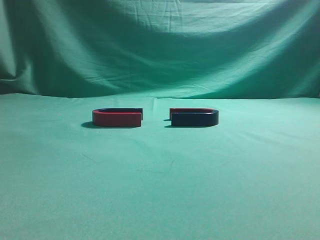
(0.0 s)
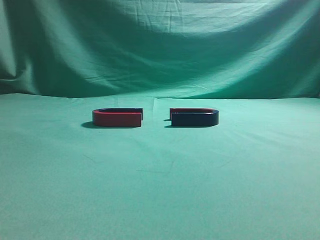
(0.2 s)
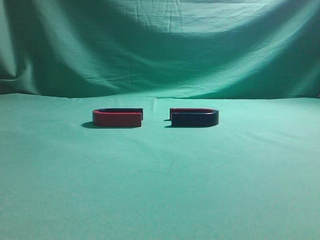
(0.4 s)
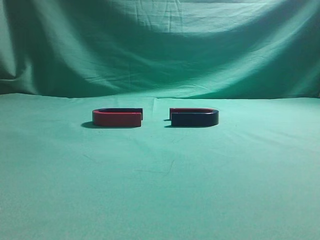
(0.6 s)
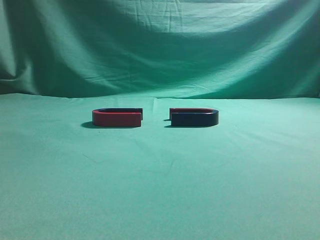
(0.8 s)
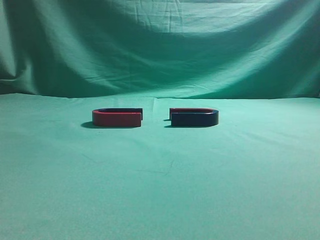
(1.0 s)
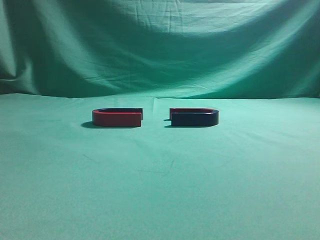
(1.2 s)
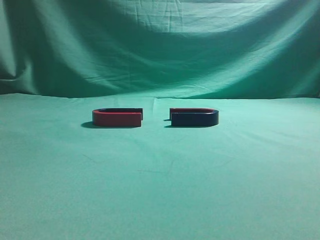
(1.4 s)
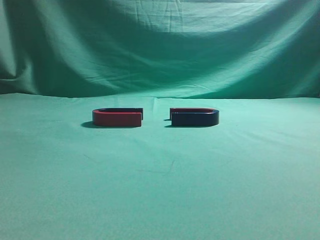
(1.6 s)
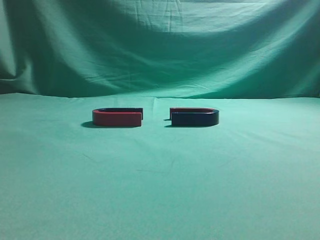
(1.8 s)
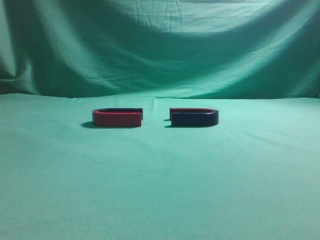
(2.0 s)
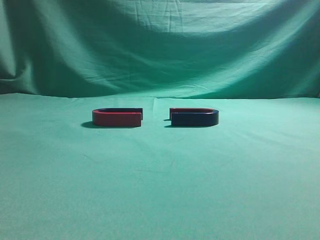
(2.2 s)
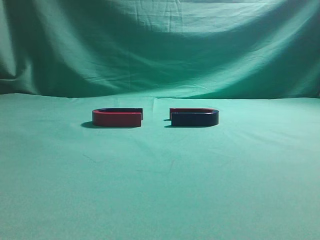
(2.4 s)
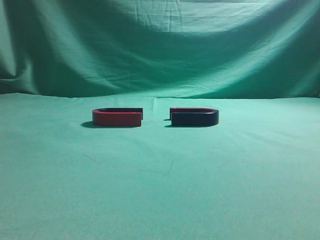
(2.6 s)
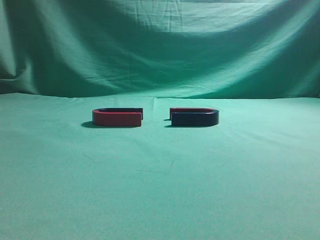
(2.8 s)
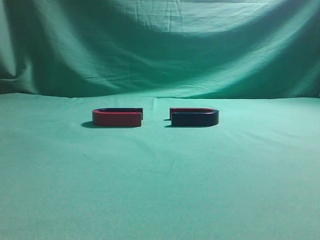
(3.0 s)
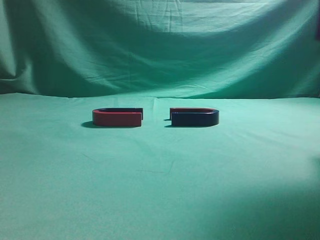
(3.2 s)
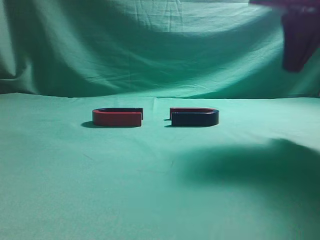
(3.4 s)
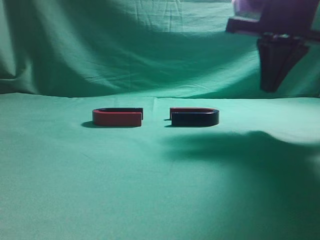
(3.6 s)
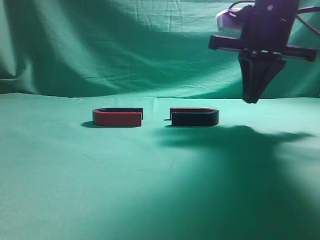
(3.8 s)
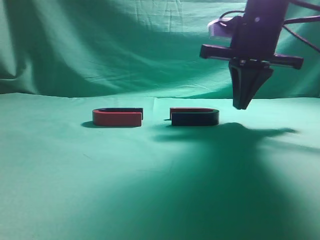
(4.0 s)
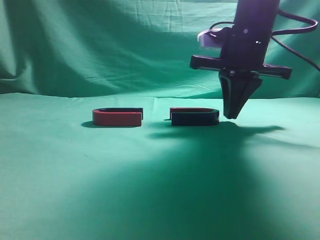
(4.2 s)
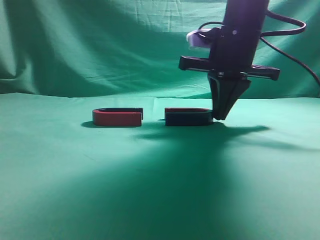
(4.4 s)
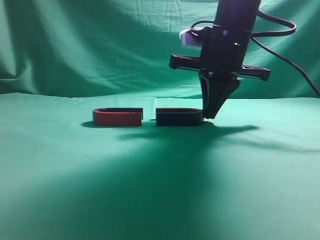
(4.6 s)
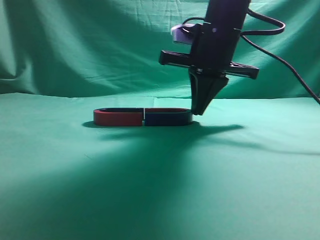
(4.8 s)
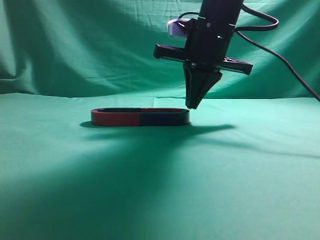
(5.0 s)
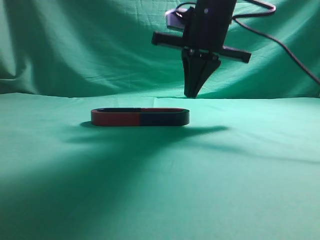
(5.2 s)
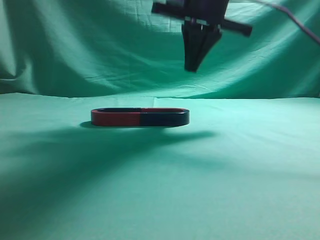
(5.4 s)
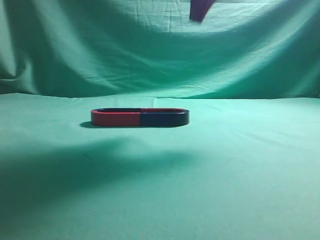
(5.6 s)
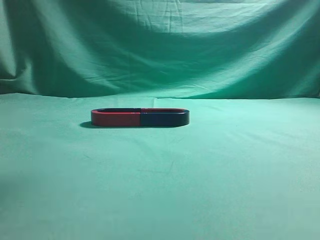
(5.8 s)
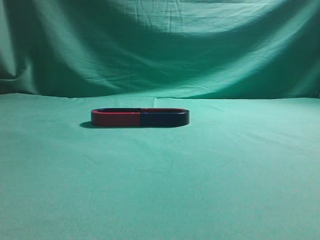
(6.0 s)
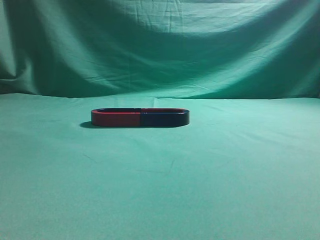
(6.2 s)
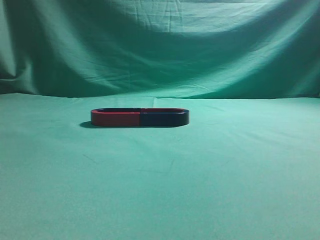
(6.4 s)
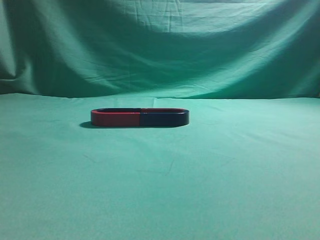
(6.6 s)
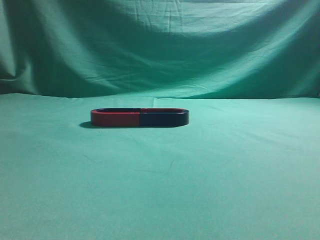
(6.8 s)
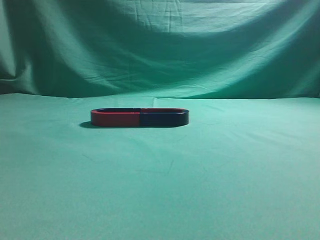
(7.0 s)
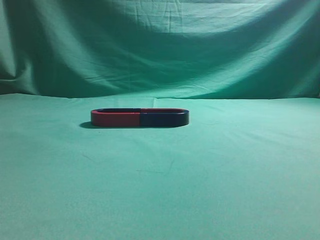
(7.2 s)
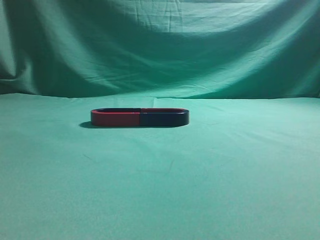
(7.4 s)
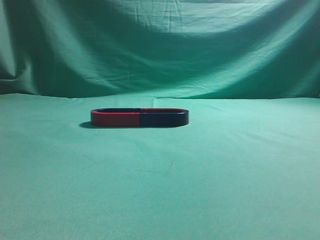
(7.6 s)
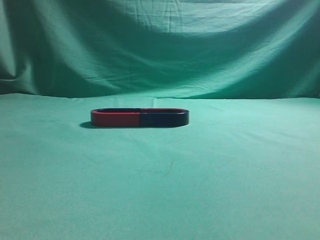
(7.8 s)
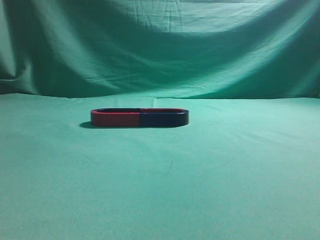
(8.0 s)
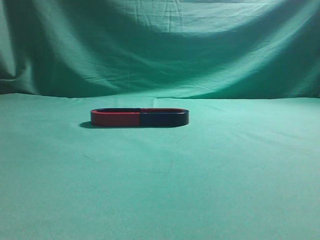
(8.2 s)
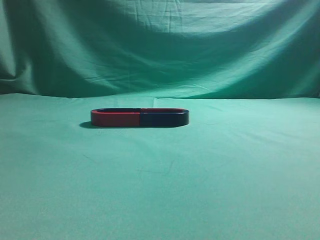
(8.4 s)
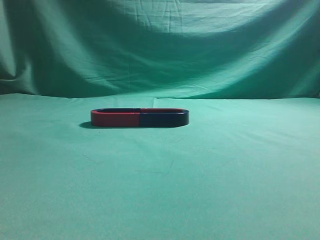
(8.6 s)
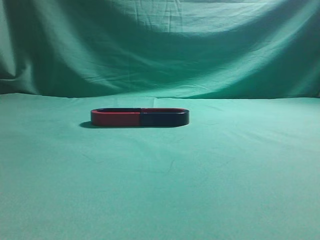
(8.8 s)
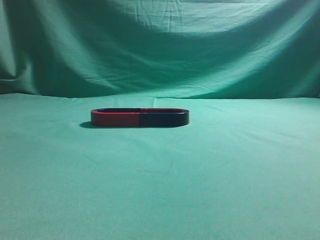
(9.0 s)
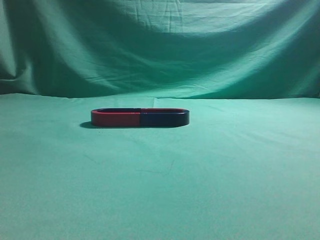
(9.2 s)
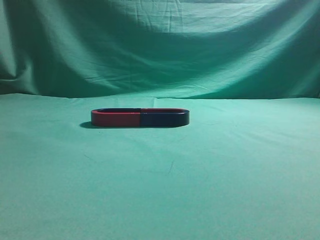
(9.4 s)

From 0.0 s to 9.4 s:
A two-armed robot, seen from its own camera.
Task of the whole recording: push the magnet on the table from its original position to another position.
Step, from 0.0 s to 5.0 s: Push the magnet on the right to connect the magnet on the left.
From 1.6 s to 3.2 s: The right gripper shifts roughly 20 cm forward.
From 3.2 s to 4.8 s: The right gripper goes approximately 20 cm to the left, forward and downward.
From 4.8 s to 6.2 s: The right gripper travels upward and backward by roughly 30 cm.
